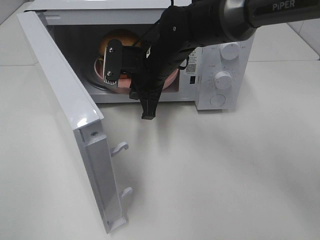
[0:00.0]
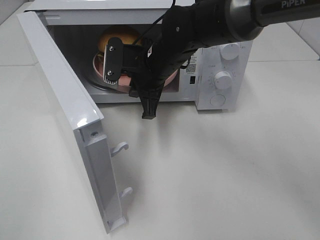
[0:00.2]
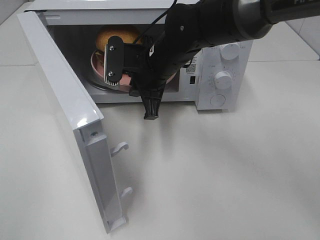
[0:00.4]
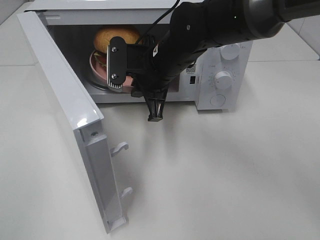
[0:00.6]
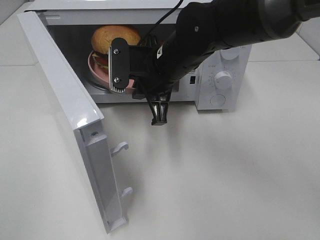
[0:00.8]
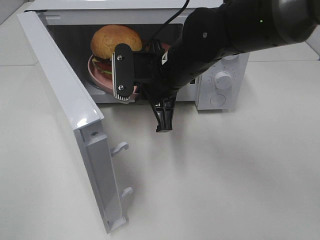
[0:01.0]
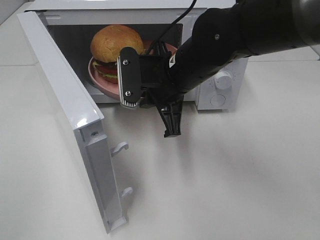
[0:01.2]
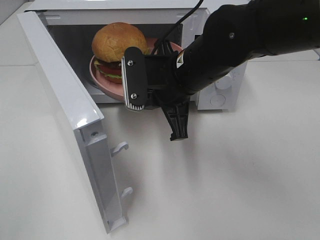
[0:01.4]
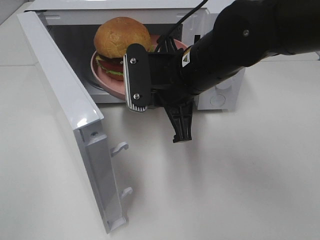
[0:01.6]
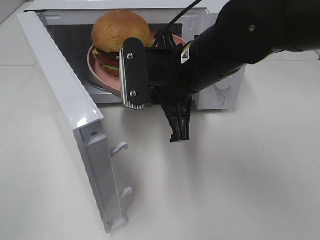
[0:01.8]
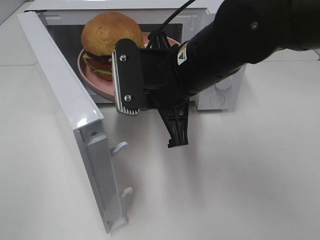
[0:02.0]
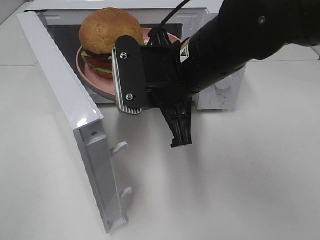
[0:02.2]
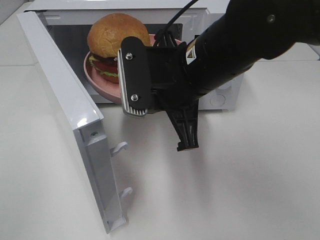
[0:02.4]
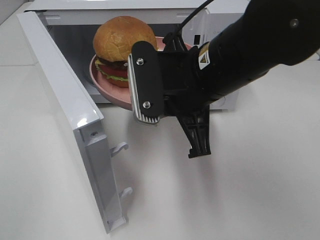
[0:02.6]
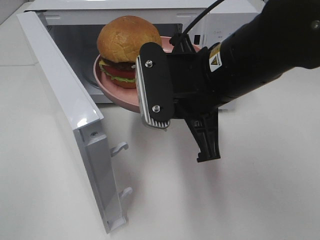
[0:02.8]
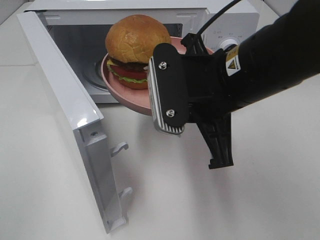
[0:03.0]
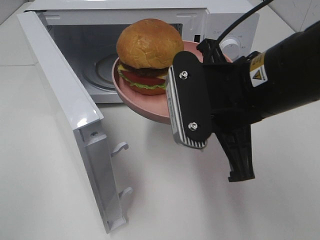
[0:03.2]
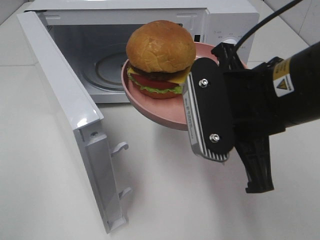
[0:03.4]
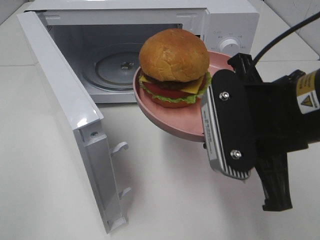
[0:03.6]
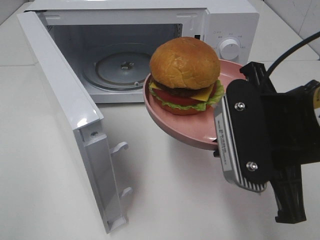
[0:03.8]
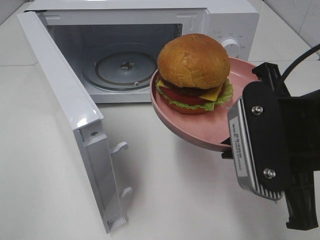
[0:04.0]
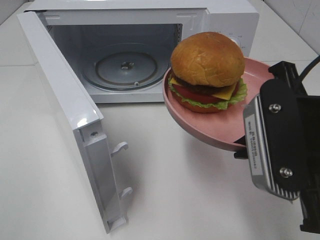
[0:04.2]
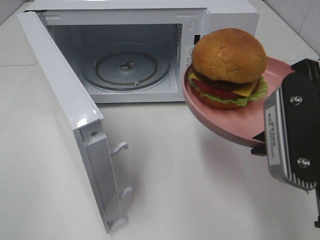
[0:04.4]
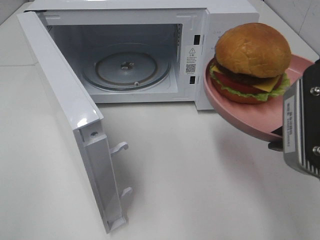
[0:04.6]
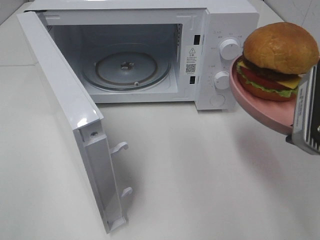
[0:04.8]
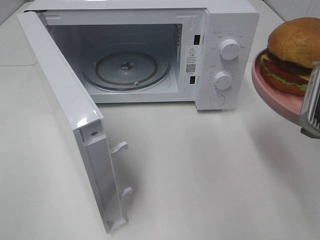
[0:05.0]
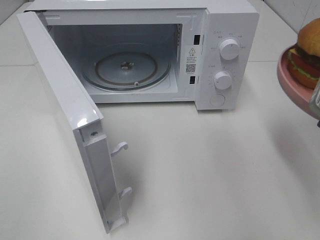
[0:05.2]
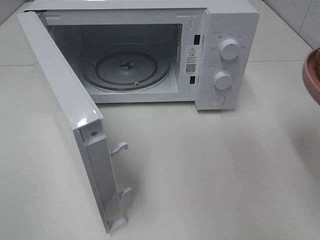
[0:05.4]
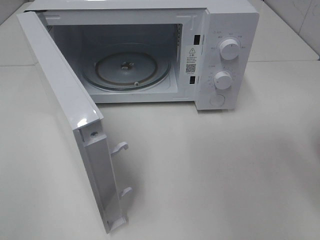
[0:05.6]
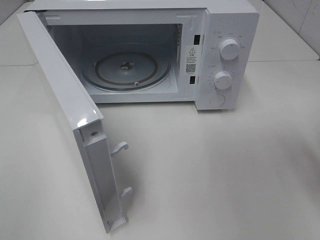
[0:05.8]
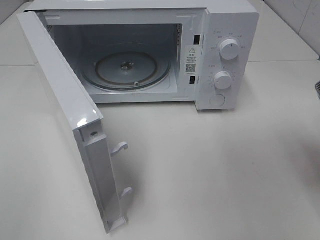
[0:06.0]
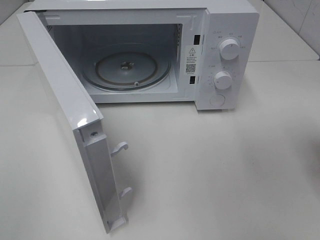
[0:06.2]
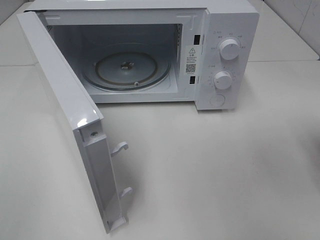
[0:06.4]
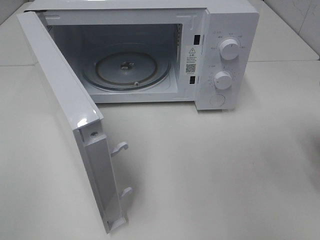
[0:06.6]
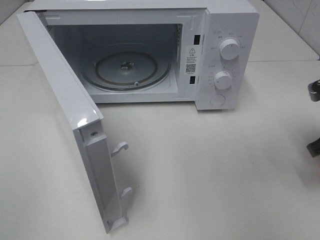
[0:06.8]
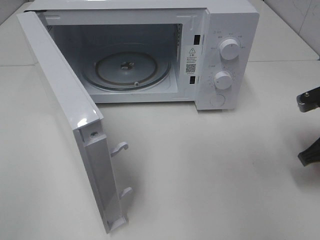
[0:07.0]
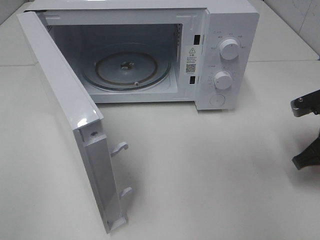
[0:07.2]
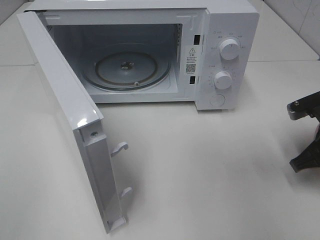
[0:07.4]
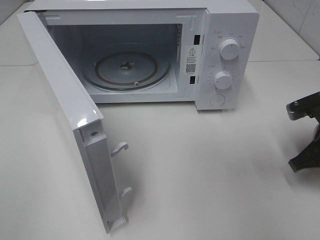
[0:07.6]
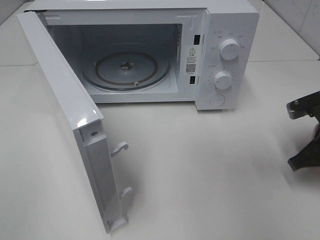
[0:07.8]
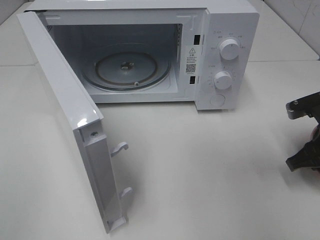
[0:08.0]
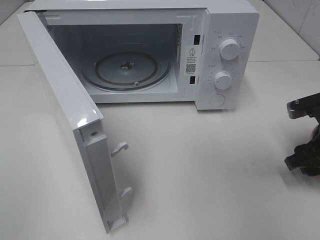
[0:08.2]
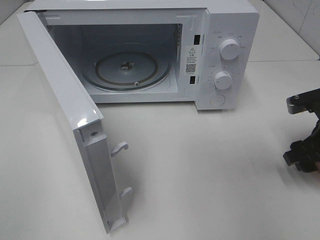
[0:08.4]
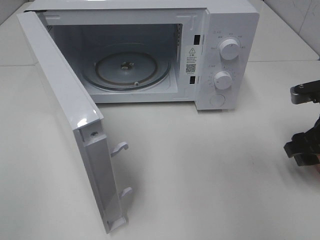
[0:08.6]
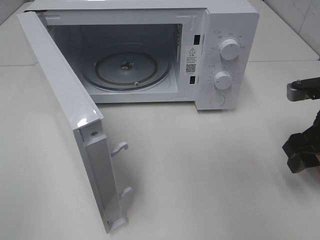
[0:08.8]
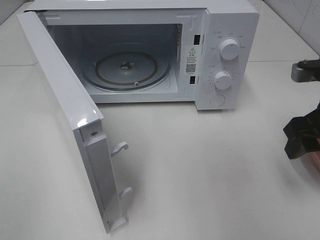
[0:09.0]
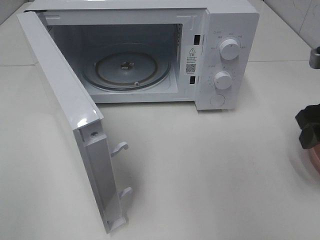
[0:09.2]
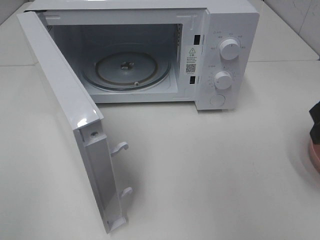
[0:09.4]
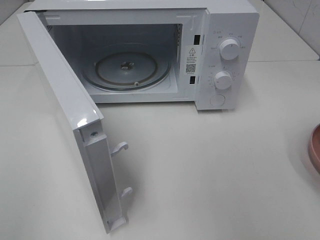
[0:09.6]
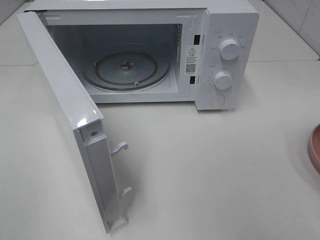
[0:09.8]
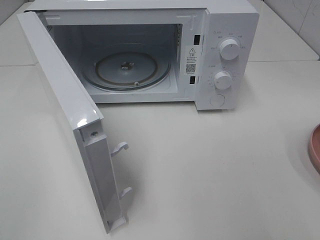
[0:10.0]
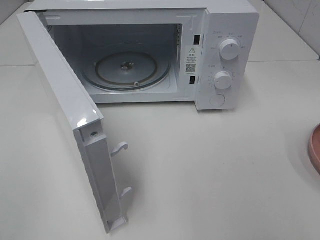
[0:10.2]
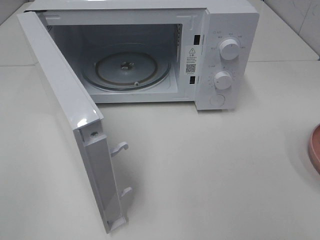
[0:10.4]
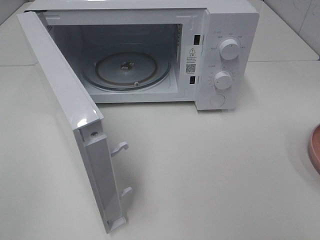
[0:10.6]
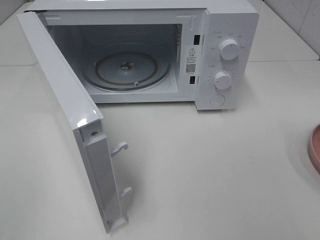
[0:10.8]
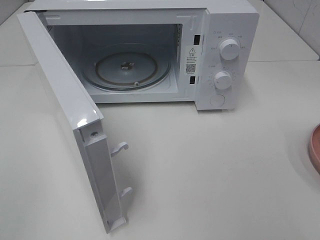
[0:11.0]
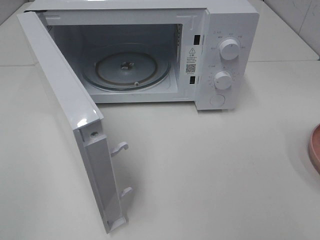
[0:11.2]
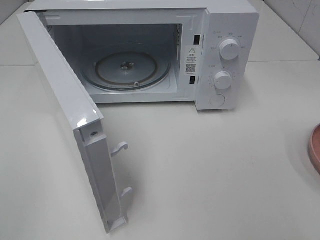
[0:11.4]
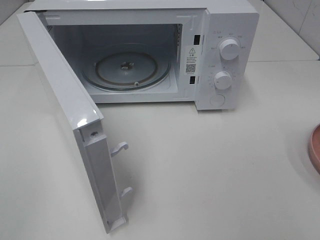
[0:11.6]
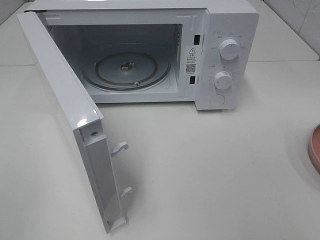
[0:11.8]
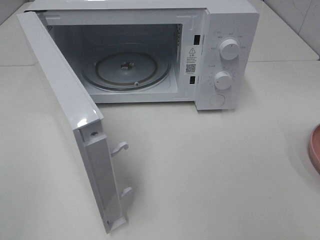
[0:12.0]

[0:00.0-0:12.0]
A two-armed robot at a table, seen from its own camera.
Task of the whole recording: Heat the burger.
Step, 0:00.0 to 0:08.0: Right hand: place the plate on the table.
0:00.0 to 0:01.6: The right gripper shifts about 10 cm backward.
0:01.6 to 0:03.0: The right gripper heads backward, covering about 5 cm.
0:03.0 to 0:04.4: The right gripper shifts some 10 cm to the right and backward.
0:04.4 to 0:06.0: The right gripper goes roughly 10 cm to the right and forward.
0:06.0 to 0:07.6: The right gripper goes roughly 10 cm downward and forward.
0:07.6 to 0:09.0: The right gripper heads upward, covering approximately 10 cm, and opens its fingers.
0:09.0 to 0:10.4: The right gripper moves backward, approximately 20 cm.

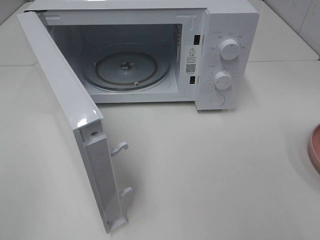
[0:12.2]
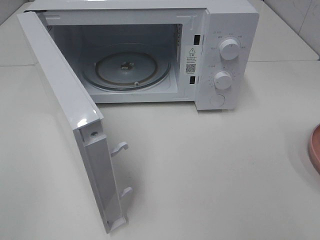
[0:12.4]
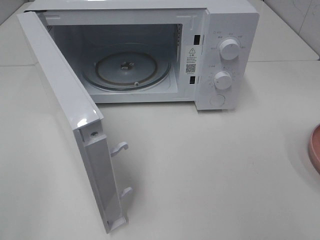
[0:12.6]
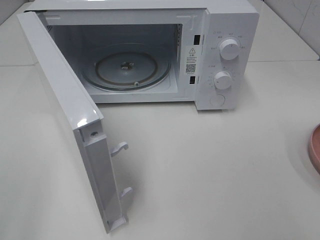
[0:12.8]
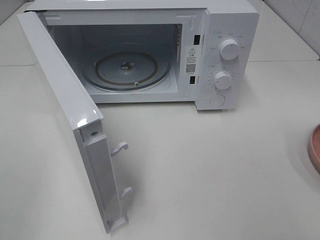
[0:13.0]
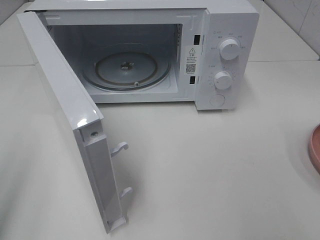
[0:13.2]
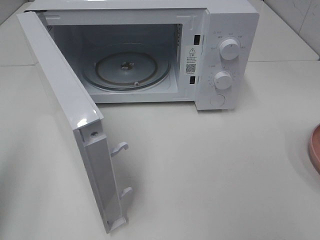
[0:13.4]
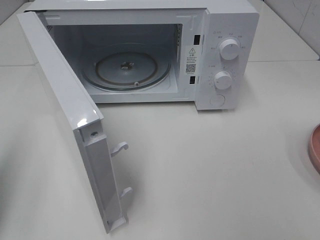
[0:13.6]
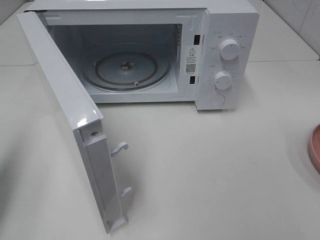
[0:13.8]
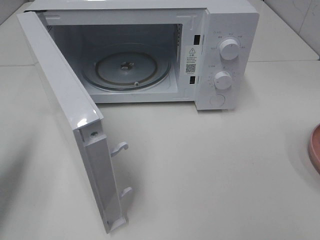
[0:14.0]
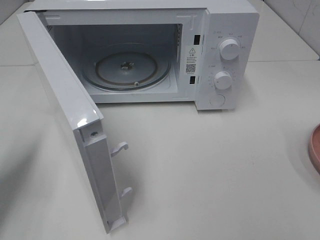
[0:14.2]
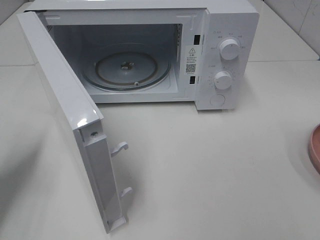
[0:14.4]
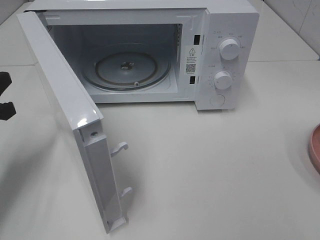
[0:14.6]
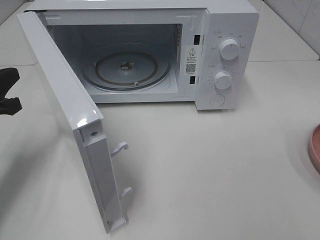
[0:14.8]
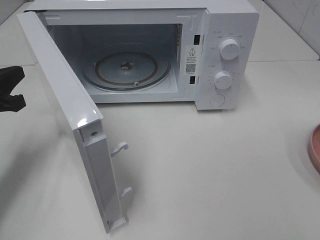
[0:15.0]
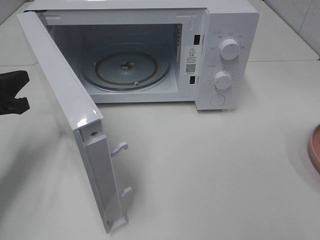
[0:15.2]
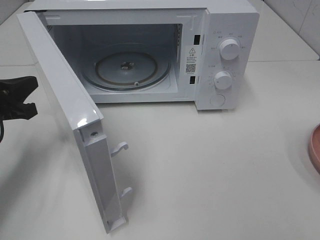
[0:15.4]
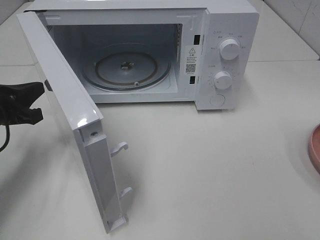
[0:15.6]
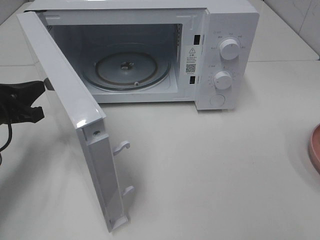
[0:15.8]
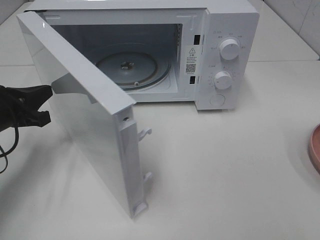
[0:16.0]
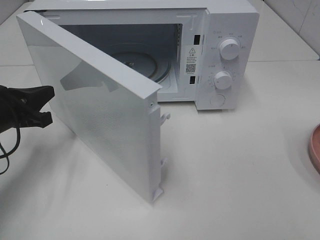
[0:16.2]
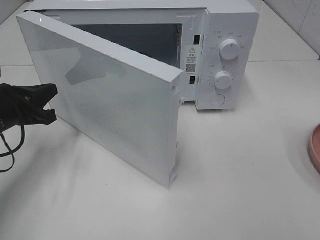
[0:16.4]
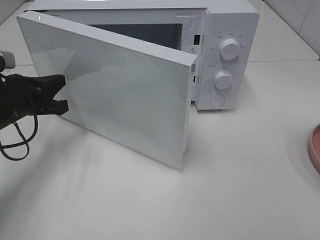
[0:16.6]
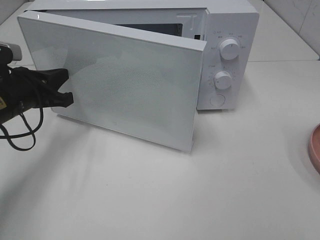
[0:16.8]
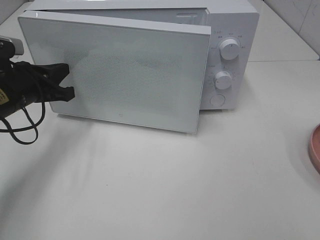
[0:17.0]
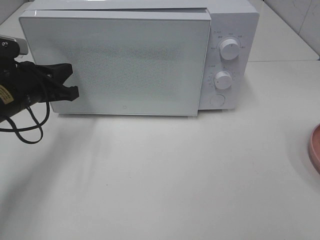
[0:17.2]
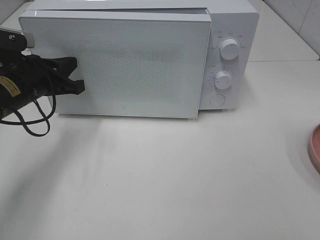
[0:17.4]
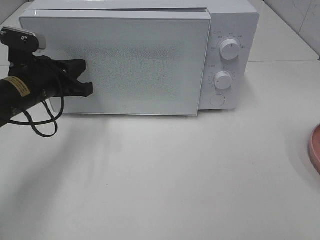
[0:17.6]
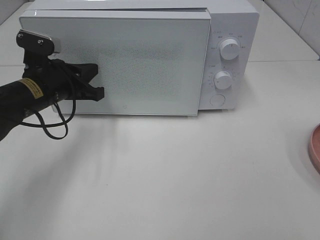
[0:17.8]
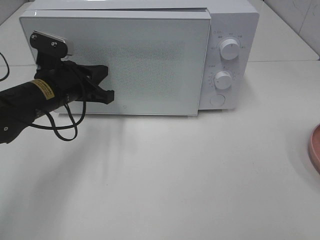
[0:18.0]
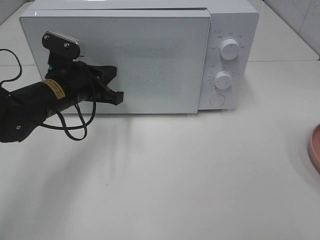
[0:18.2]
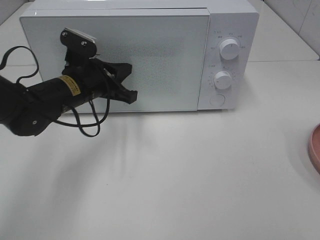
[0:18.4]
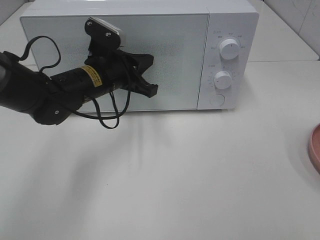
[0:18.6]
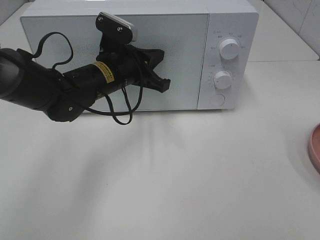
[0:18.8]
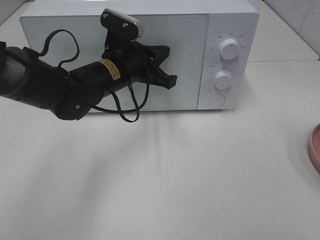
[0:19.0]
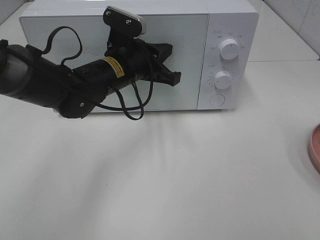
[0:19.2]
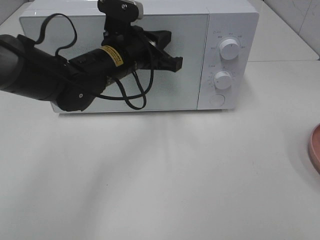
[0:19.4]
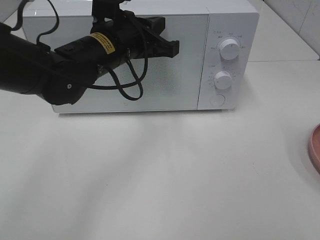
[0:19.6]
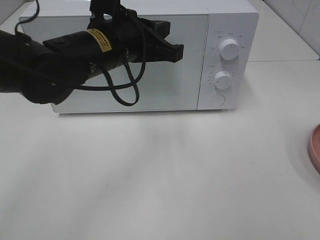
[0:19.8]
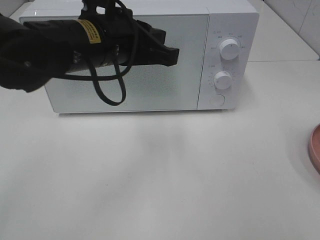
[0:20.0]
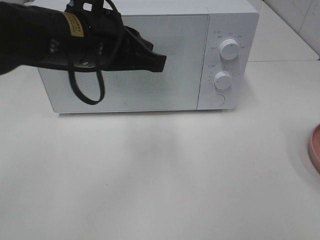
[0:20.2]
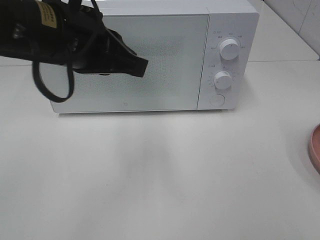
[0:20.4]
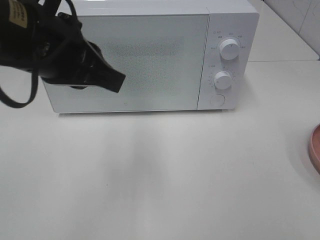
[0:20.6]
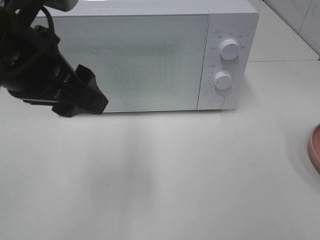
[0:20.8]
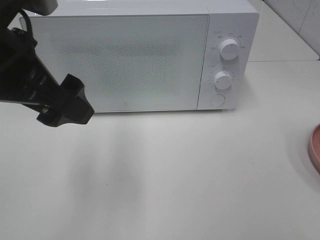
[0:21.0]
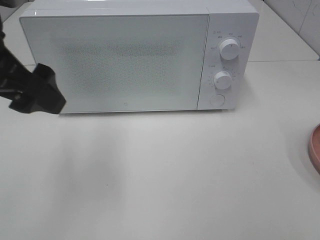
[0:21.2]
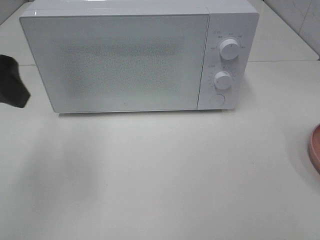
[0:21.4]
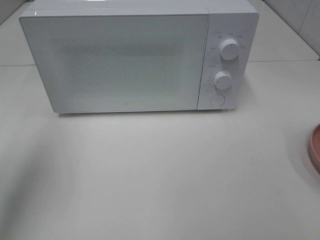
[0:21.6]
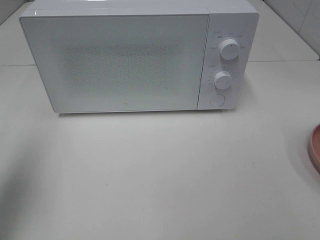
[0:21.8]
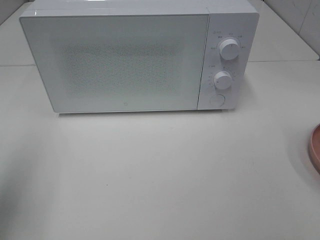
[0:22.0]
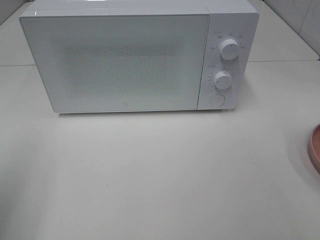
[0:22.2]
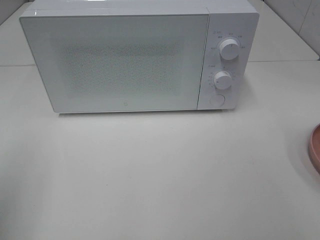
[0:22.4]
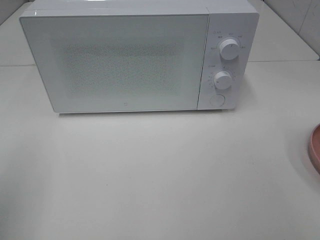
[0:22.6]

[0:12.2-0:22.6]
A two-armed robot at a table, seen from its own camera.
Task of the whole recording: Heat the burger.
Step, 0:12.2 to 0:18.4: Left hand: close the microwave door.
0:12.2 to 0:13.6: The left gripper is displaced forward by roughly 15 cm, and closes up.
0:13.6 to 0:15.2: The left gripper goes about 15 cm forward and downward.
0:15.2 to 0:16.6: The left gripper travels to the right by about 5 cm.
0:16.6 to 0:18.2: The left gripper travels to the right by some 10 cm.
0:18.2 to 0:19.6: The left gripper goes about 10 cm to the right and upward.
0:19.6 to 0:21.2: The left gripper goes about 20 cm to the left, backward and upward, and opens its fingers.
0:21.2 to 0:22.6: The left gripper is displaced backward and to the left by about 20 cm.
